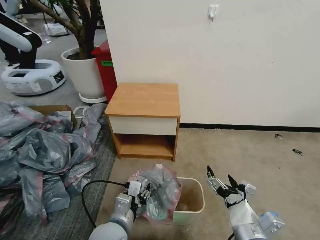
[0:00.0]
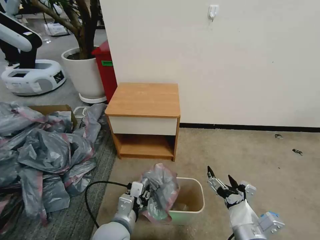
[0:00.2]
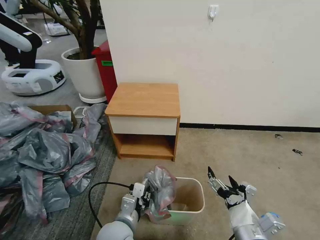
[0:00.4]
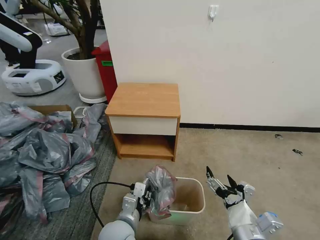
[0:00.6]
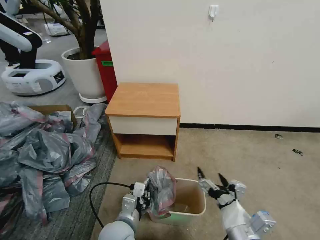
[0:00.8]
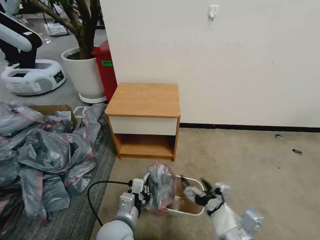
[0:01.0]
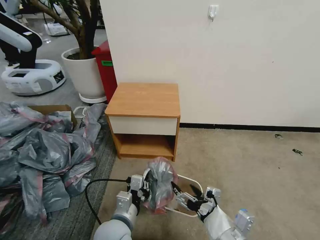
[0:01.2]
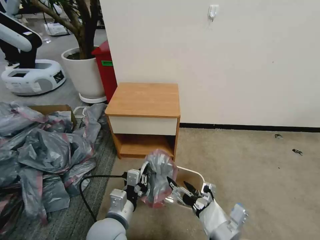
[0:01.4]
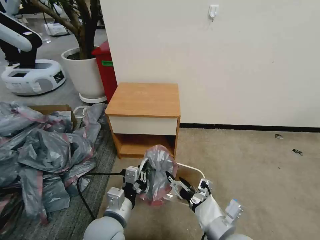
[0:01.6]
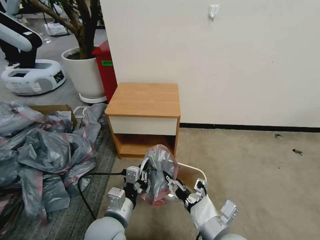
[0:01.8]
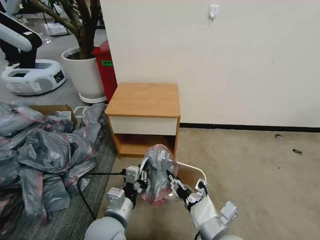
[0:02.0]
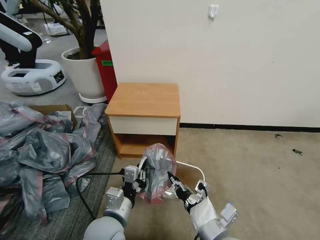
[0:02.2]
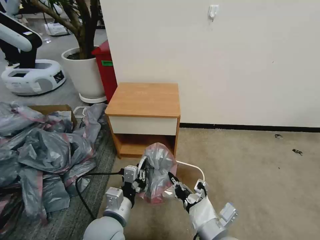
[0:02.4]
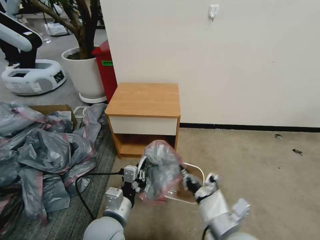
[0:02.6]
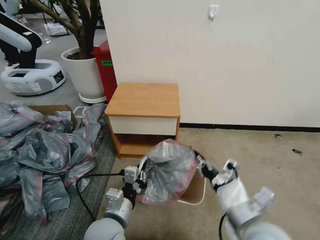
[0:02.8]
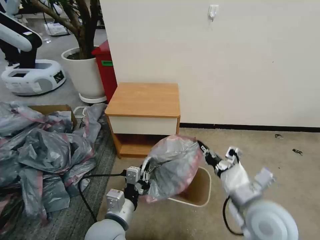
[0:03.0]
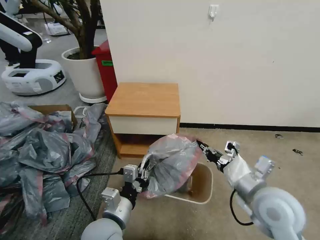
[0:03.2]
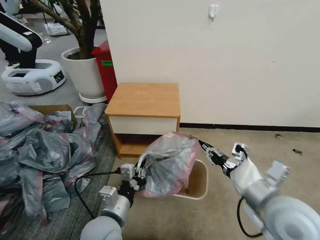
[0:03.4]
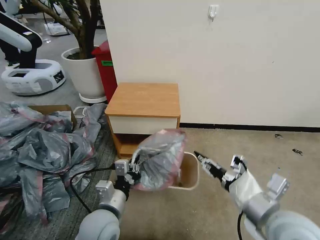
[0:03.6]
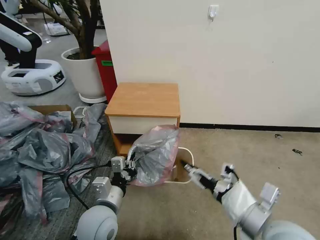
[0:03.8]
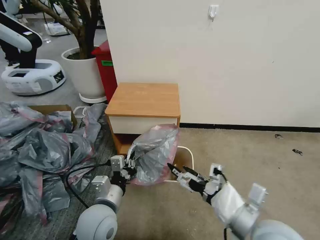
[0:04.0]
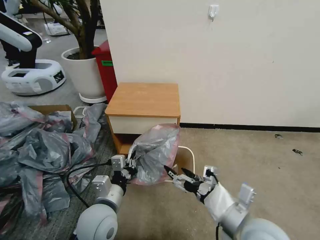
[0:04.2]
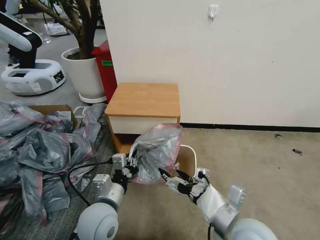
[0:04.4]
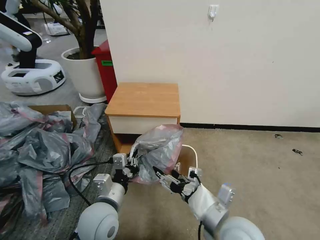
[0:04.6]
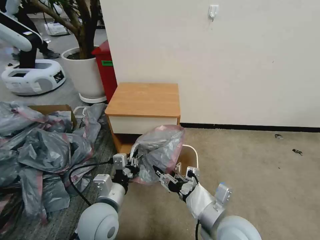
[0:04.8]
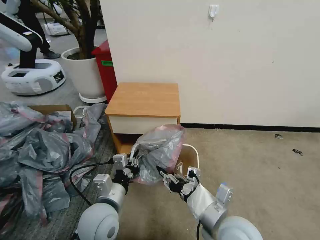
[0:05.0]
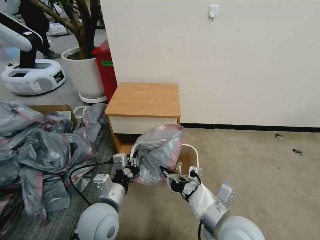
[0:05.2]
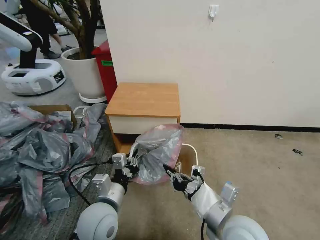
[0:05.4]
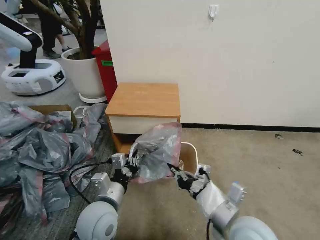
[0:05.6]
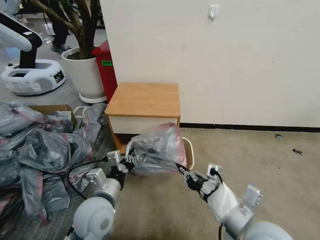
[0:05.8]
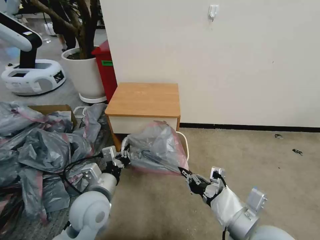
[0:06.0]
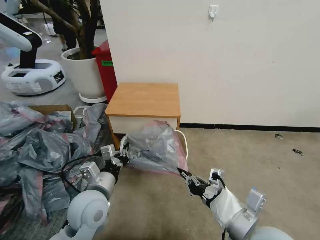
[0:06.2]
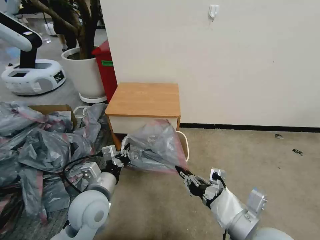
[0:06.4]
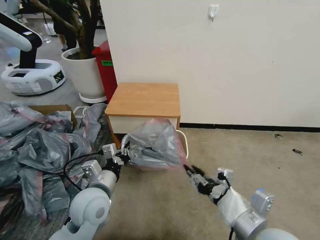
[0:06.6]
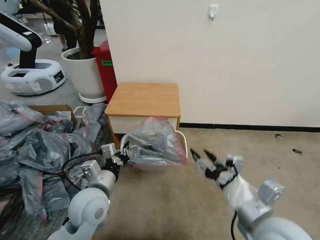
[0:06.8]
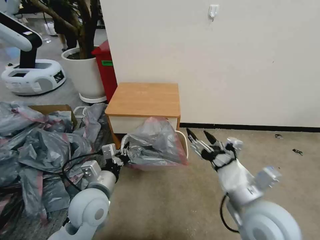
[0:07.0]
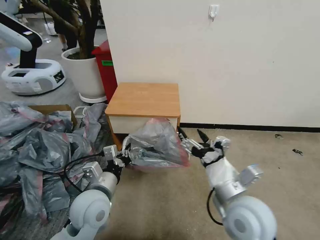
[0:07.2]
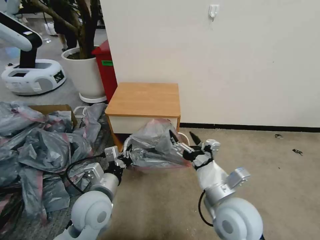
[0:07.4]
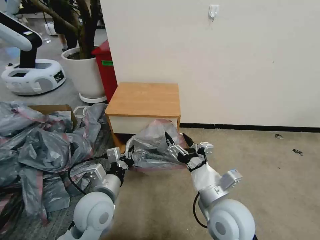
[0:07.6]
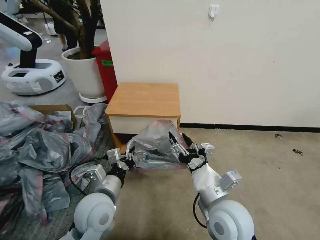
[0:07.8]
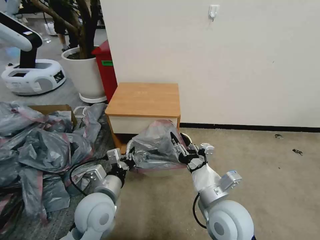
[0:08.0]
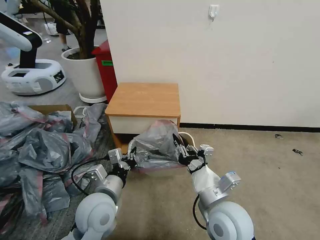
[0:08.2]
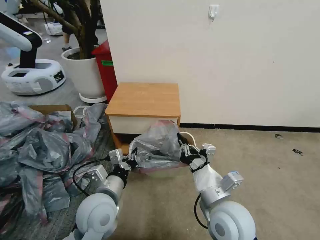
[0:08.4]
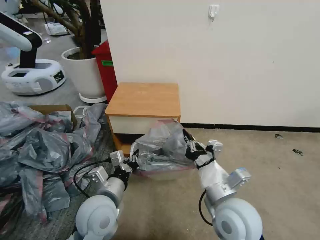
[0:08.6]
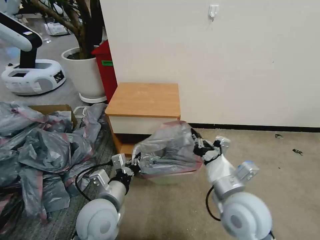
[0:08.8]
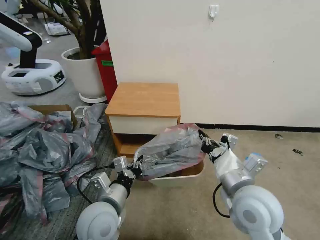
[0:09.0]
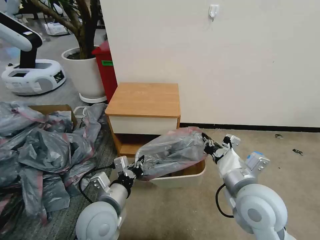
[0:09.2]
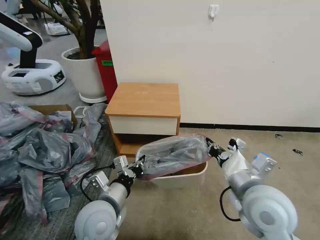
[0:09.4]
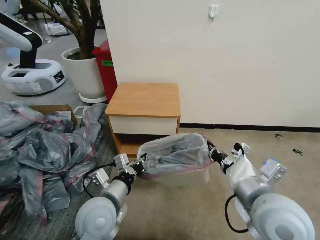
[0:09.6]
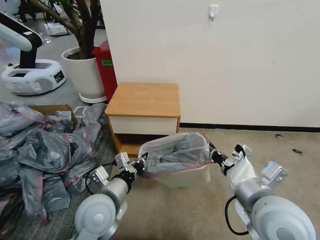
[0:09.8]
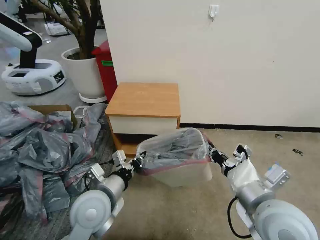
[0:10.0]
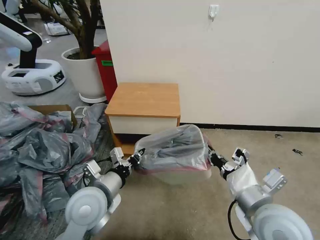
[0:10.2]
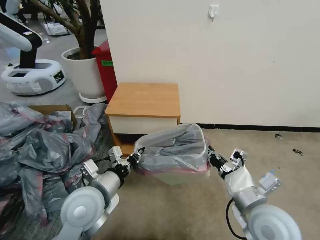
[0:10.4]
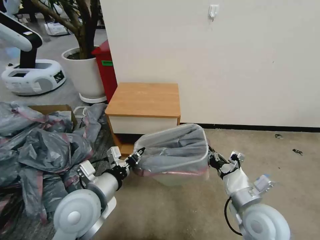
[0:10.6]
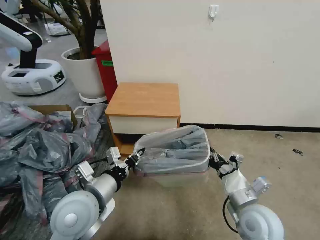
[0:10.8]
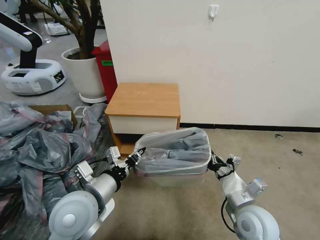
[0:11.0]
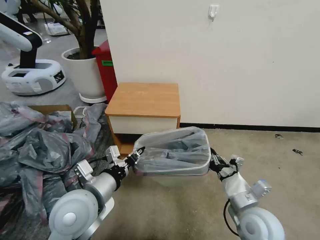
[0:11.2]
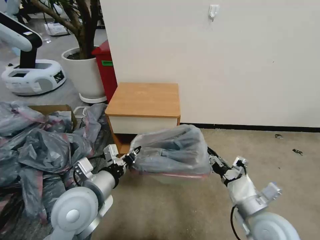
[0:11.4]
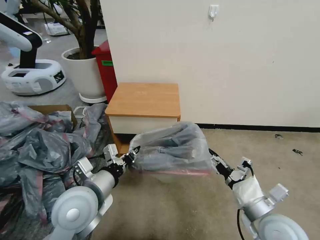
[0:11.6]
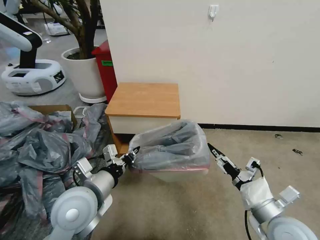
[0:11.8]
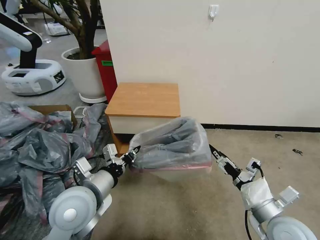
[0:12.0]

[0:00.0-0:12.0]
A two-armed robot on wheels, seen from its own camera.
Task of the whole recording: Pick up the garbage bag from the table and place it over the trash can.
0:00.0 to 0:01.6: The left gripper closes.
0:01.6 to 0:03.0: The right gripper travels forward, upward and to the right by roughly 10 cm, and closes.
0:03.0 to 0:04.4: The right gripper changes place by about 5 cm, and opens.
0:04.4 to 0:06.0: The right gripper closes.
0:06.0 to 0:07.6: The right gripper goes some 10 cm forward and to the left, and opens its fingers.
0:07.6 to 0:09.0: The right gripper changes place by approximately 5 cm, and closes its fingers.
0:09.0 to 0:10.4: The left gripper shifts by some 5 cm; the right gripper changes place by approximately 5 cm.
0:10.4 to 0:12.0: The right gripper heads to the right, covering some 5 cm, and opens.

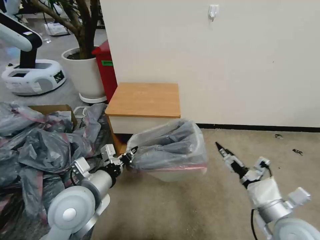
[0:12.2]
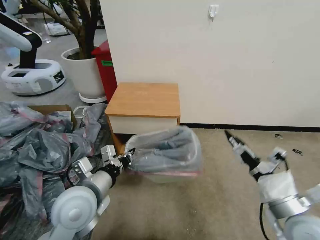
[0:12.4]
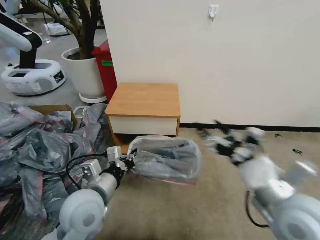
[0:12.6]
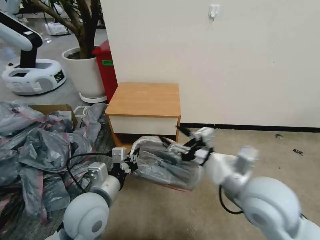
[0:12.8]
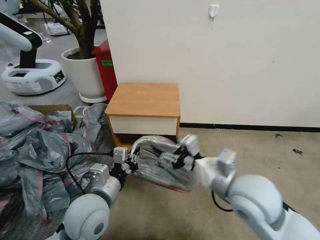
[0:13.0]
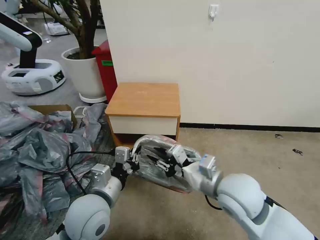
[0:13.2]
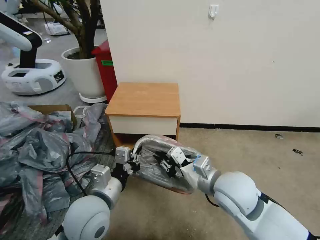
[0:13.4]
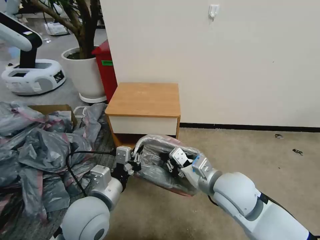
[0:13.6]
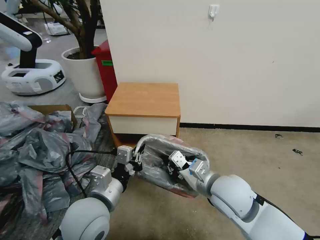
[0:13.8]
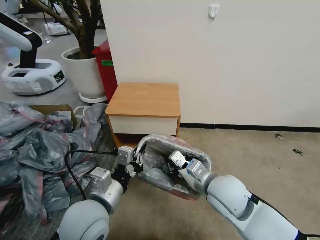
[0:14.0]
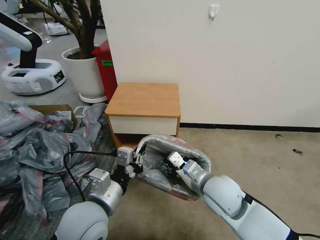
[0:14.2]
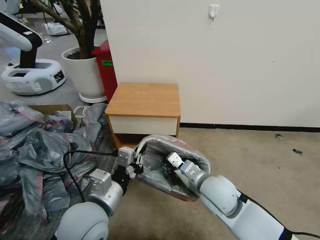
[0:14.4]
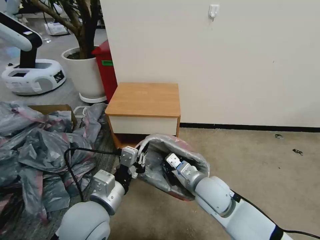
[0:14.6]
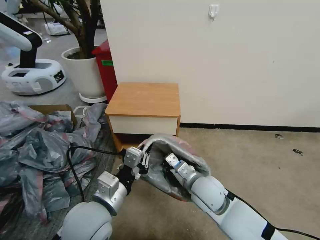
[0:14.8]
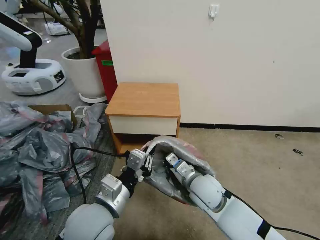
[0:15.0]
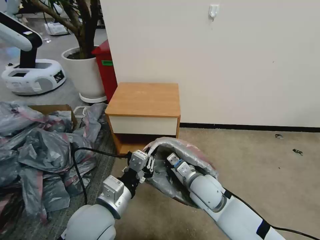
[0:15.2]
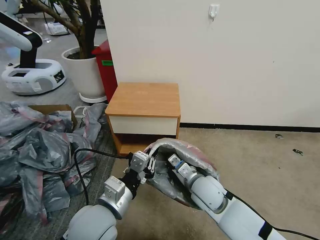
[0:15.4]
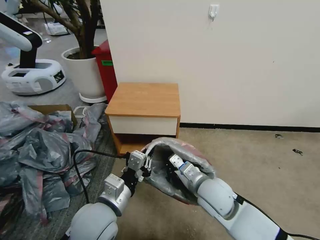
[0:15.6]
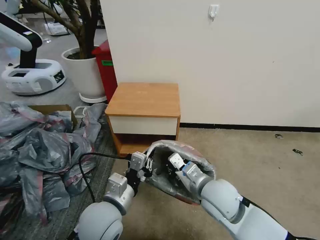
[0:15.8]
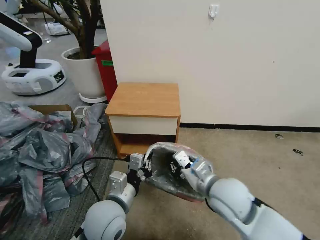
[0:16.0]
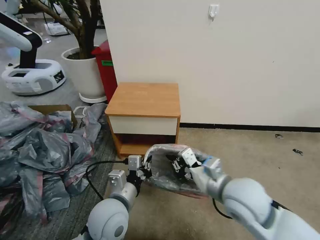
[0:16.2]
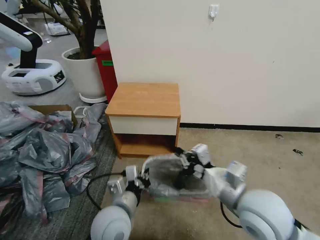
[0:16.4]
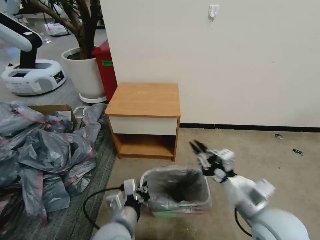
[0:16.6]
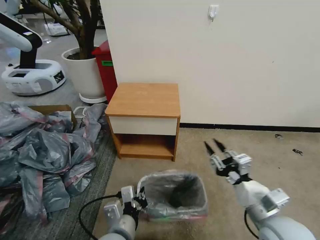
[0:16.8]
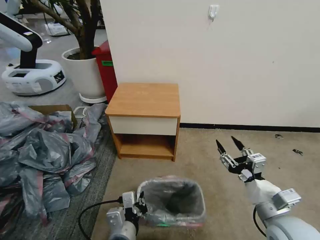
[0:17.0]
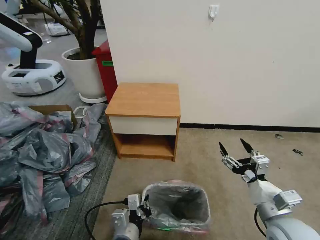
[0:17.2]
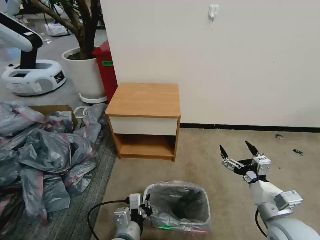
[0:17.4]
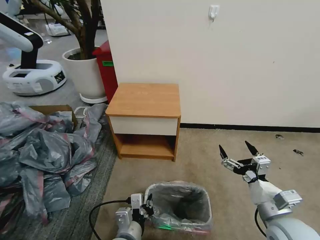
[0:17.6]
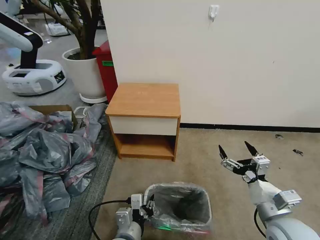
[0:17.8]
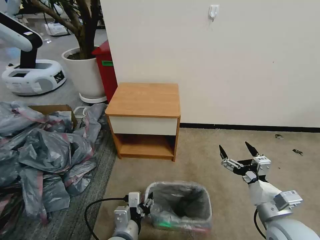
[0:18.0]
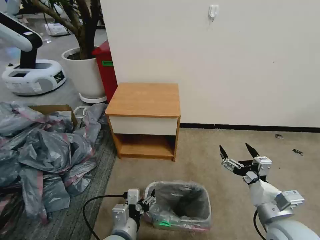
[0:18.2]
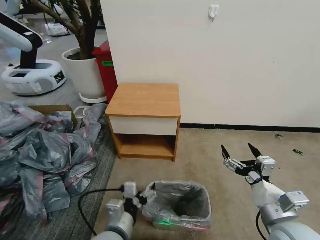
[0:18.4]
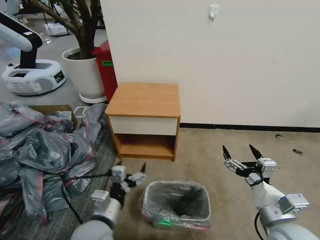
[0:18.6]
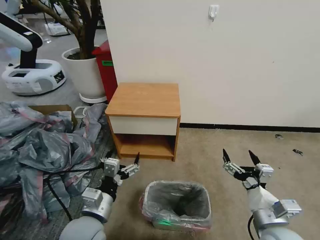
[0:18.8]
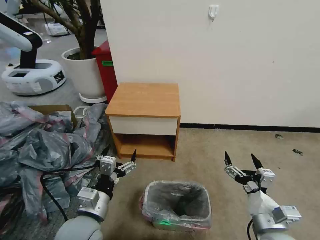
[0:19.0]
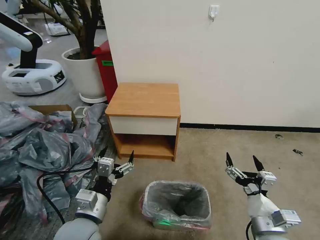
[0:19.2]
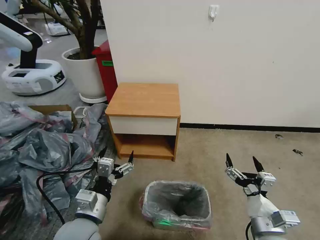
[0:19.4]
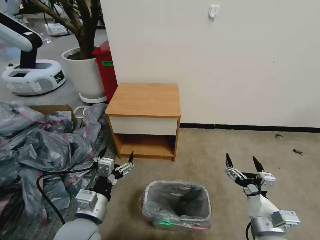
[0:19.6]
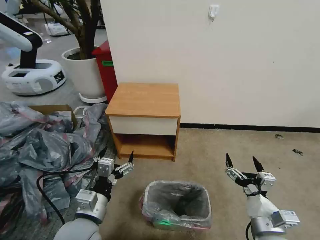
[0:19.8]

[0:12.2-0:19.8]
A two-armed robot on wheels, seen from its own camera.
Task of the whole recording: Pick up the garbage bag from the table and place it over the trash can.
0:12.2 to 0:13.8: The right gripper moves to the left and forward, roughly 15 cm, and closes.
0:13.8 to 0:15.2: The right gripper is displaced downward by about 10 cm.
0:15.2 to 0:16.8: The left gripper travels downward by about 10 cm. The right gripper goes some 20 cm to the right, backward and upward, and opens.
0:16.8 to 0:18.2: The left gripper opens. The right gripper opens.
0:18.2 to 0:19.8: The left gripper heads to the left and upward, covering about 10 cm. The right gripper changes place by approximately 5 cm.

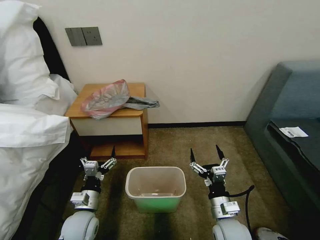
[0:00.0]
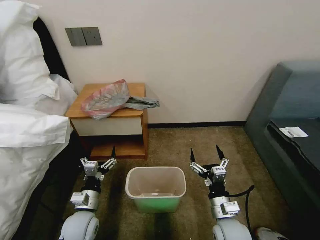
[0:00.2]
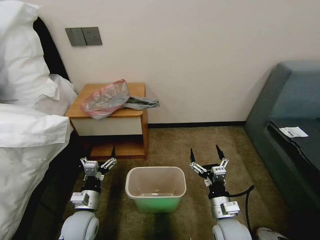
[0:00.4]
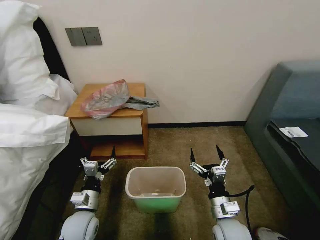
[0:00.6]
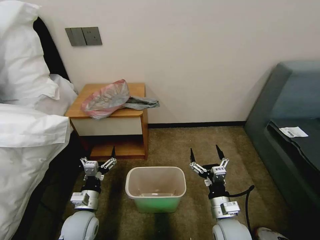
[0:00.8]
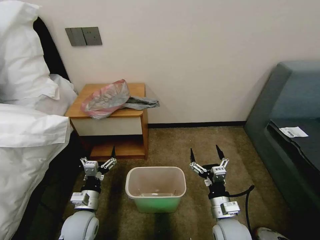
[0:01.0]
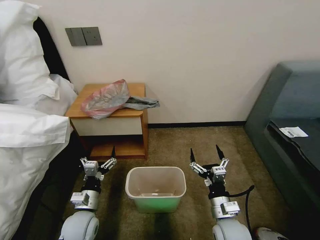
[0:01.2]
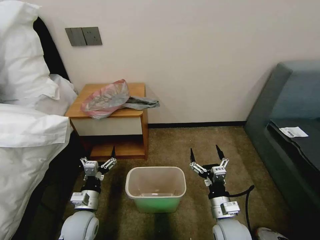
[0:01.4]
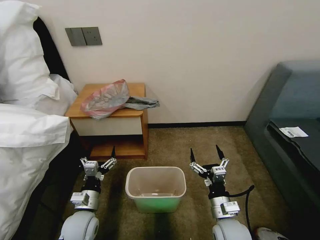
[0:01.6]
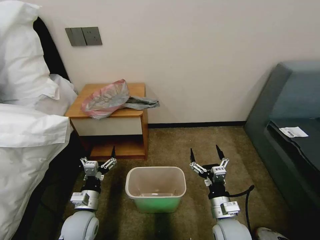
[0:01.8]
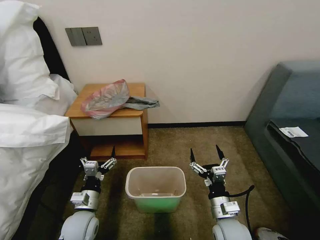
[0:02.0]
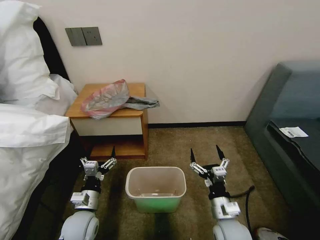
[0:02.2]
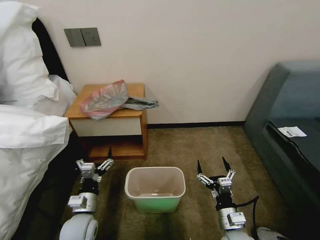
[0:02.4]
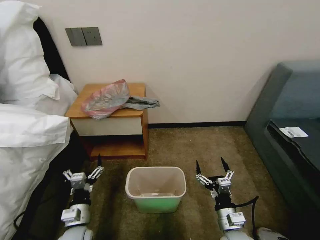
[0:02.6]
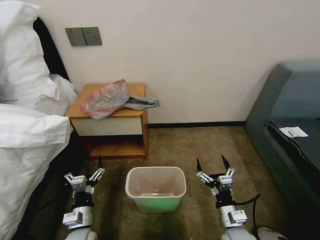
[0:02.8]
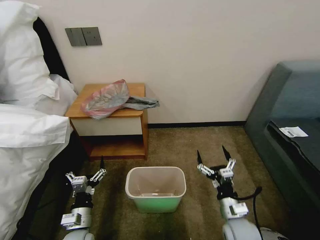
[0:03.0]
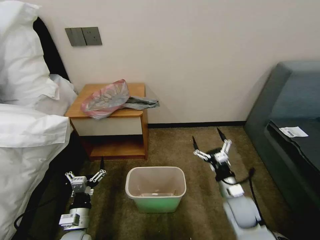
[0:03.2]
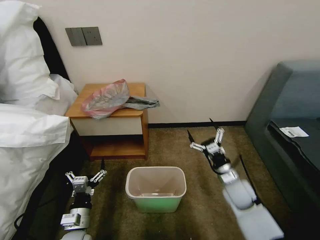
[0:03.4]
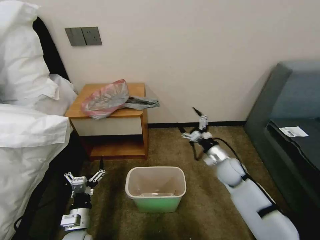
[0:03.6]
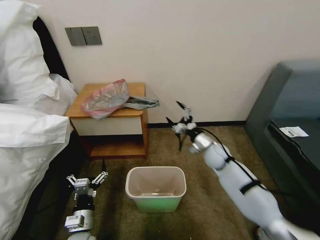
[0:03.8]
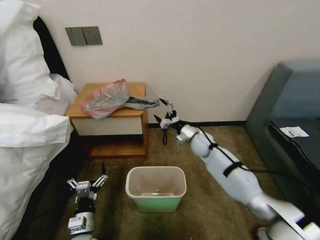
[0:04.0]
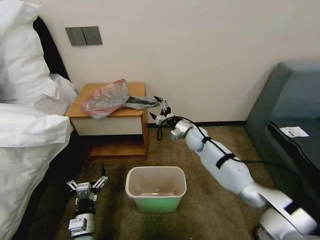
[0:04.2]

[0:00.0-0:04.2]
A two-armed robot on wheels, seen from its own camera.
Task of the whole recording: Pick up the garbage bag from the table and place it over the trash can.
0:01.4 to 0:02.8: The grippers move only a little.
0:02.8 to 0:04.2: The right gripper moves forward, roughly 35 cm.
